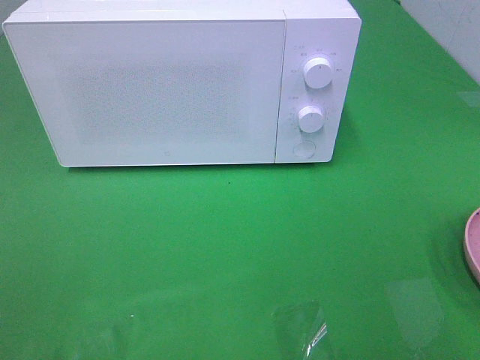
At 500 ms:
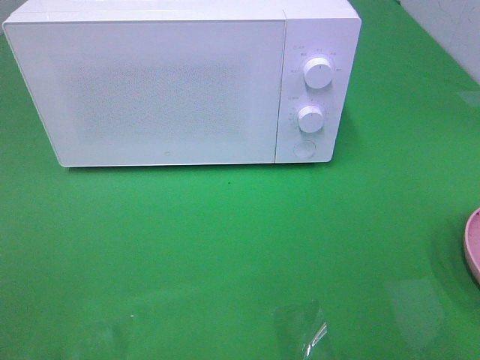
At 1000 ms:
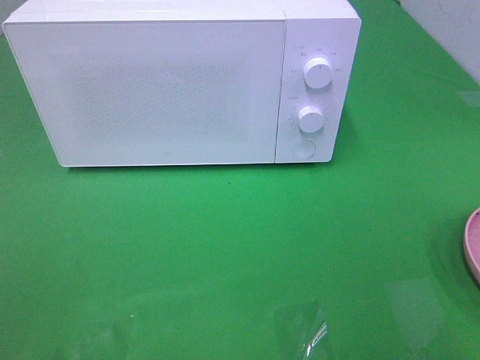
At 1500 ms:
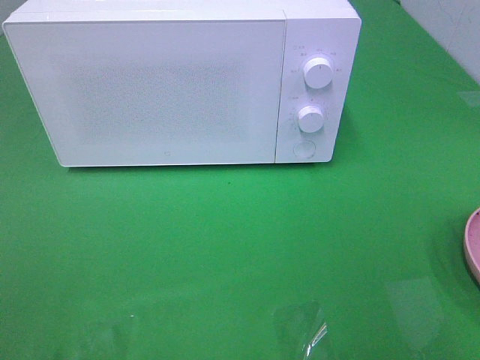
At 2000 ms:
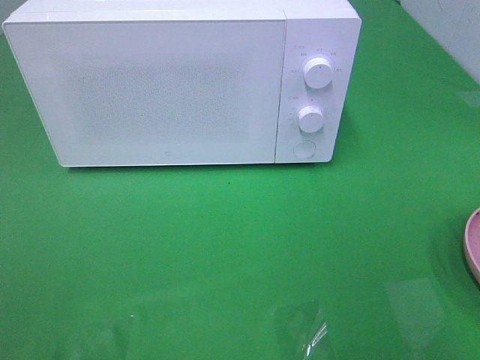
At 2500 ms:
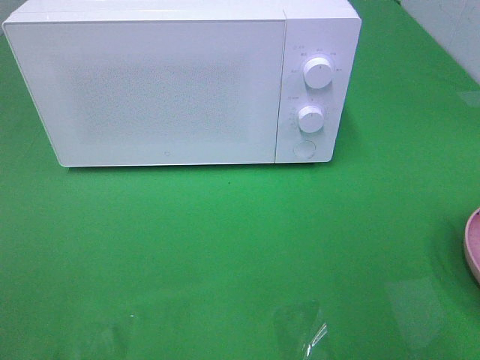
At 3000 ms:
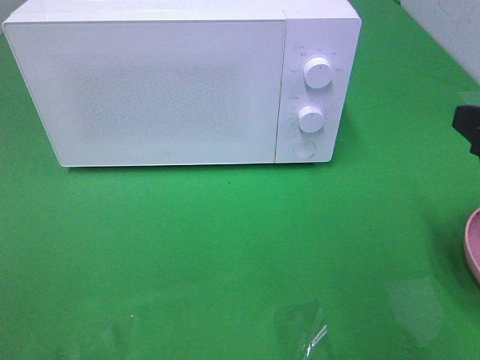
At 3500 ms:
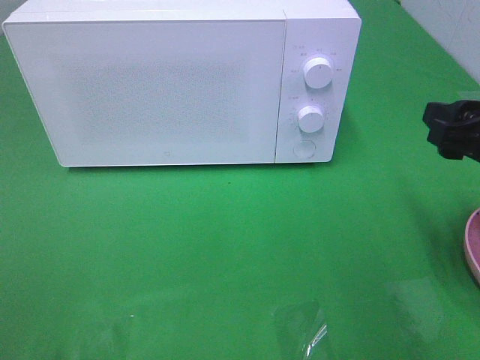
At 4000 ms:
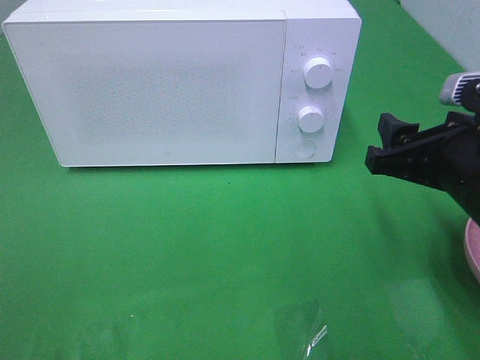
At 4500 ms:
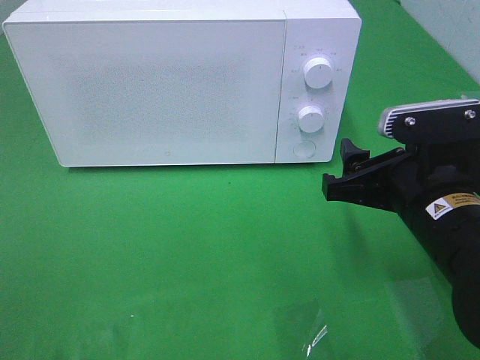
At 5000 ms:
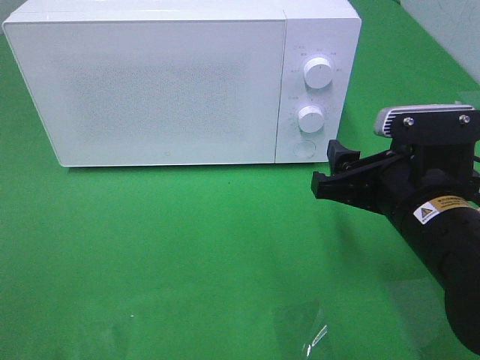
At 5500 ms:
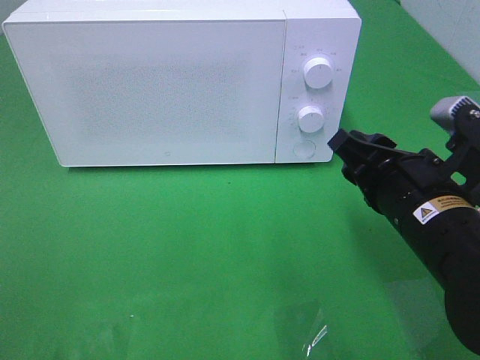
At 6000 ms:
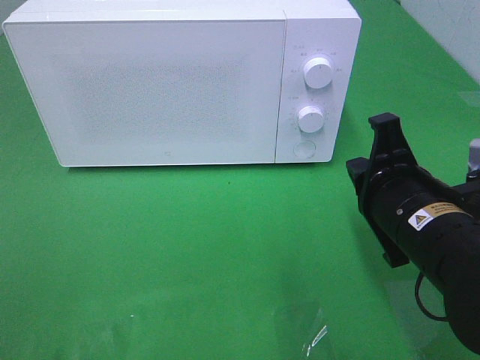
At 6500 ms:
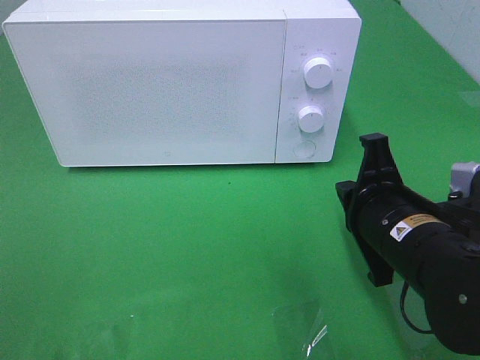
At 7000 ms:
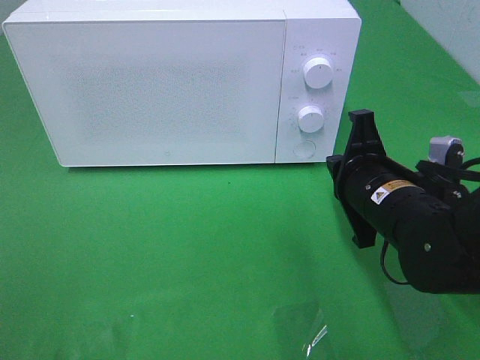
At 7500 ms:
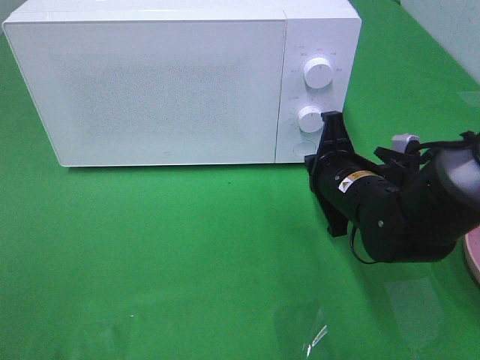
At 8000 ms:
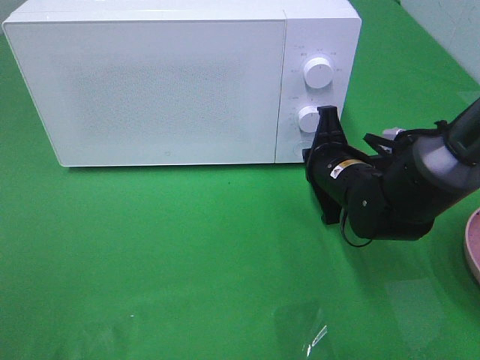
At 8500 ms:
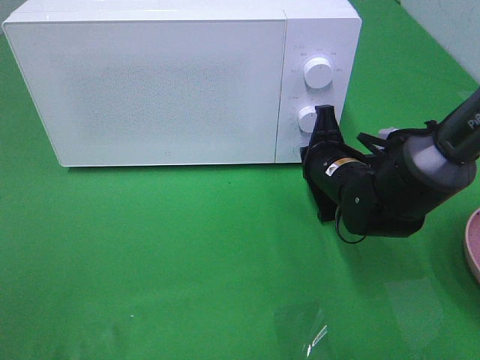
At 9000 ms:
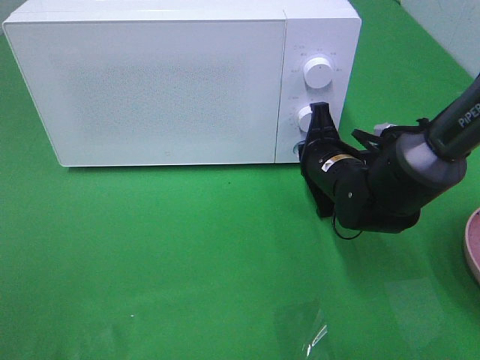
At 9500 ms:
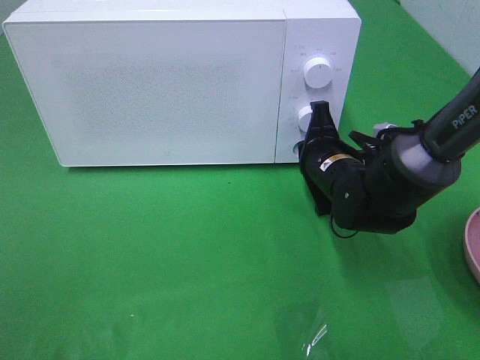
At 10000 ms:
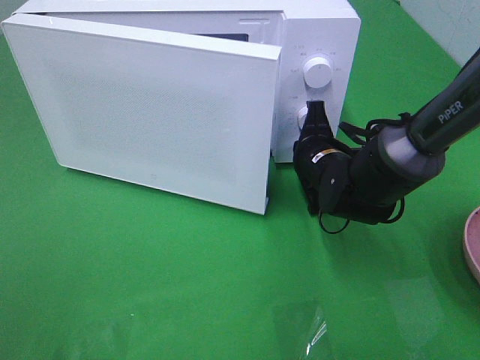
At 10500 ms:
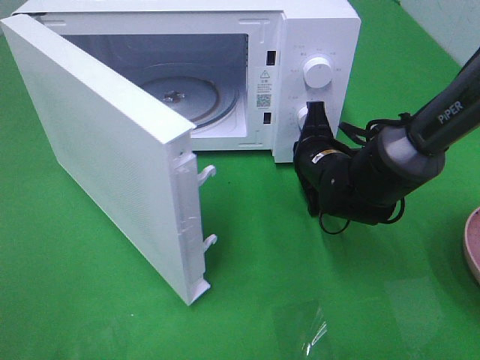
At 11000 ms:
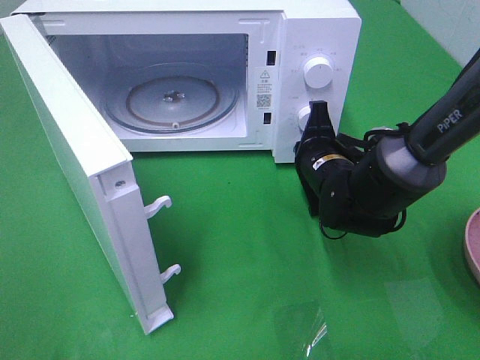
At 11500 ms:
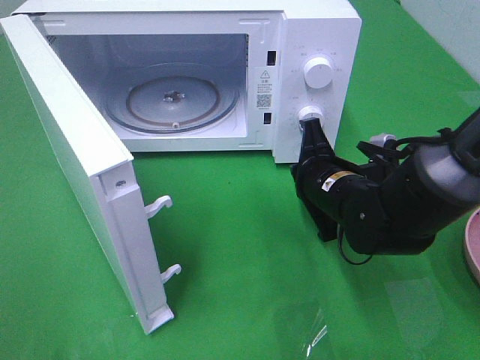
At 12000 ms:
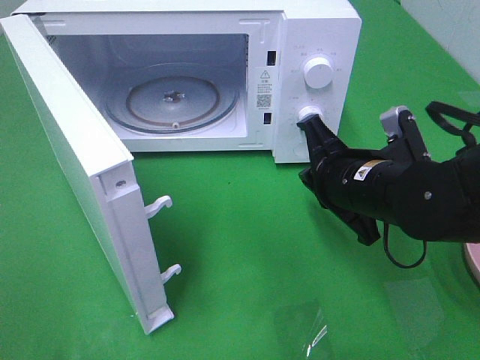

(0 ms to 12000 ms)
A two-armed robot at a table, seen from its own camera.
Task of the whole recording: Heat the burger.
Step, 0 ms - 8500 ms: Right hand: press the switch.
2000 ms - 4000 ms: The right gripper shifts about 20 cm forward, downward and to the left.
4000 ms - 6000 ms: The right gripper ends up about 5 cm from where it was, and closes.
6000 ms - 8000 ms: The right gripper goes approximately 15 cm forward and downward.
8000 ms - 10000 ms: The grippers move only a little.
10000 ms - 12000 ms: The right gripper heads backward and upward, covering some 10 cm.

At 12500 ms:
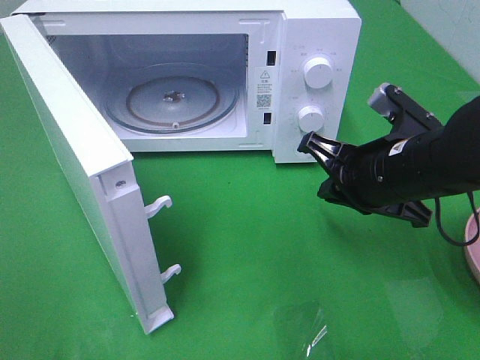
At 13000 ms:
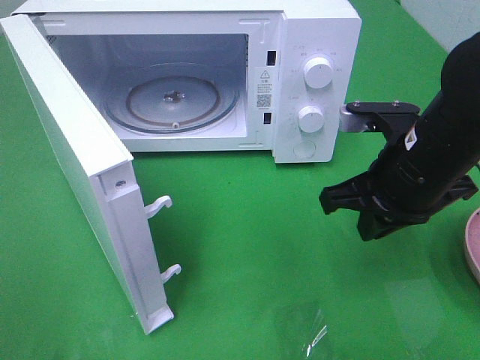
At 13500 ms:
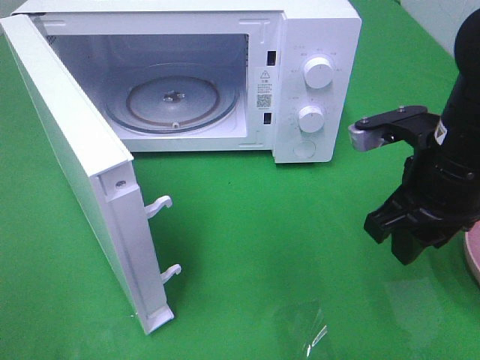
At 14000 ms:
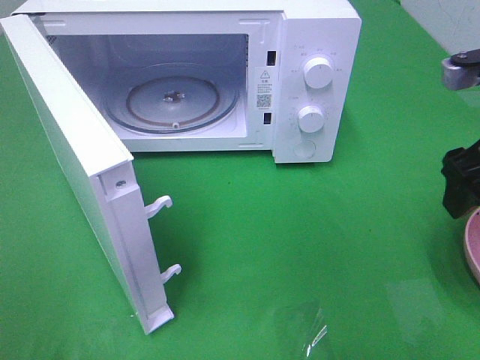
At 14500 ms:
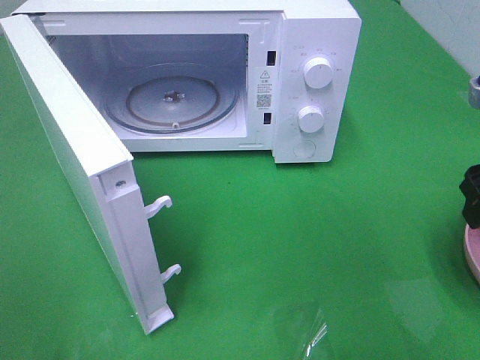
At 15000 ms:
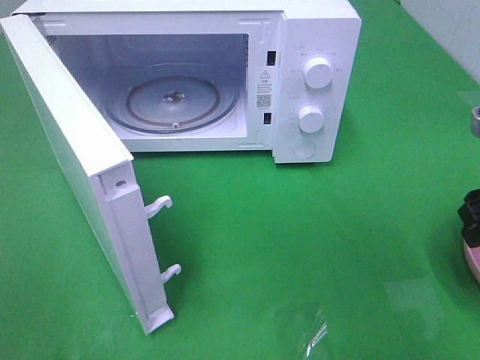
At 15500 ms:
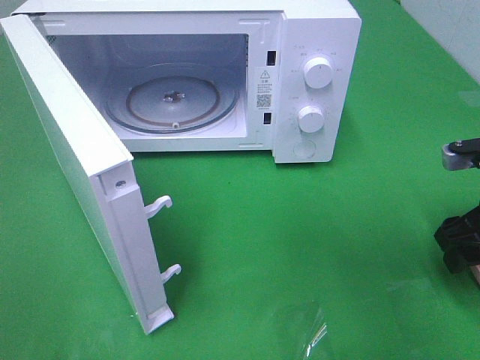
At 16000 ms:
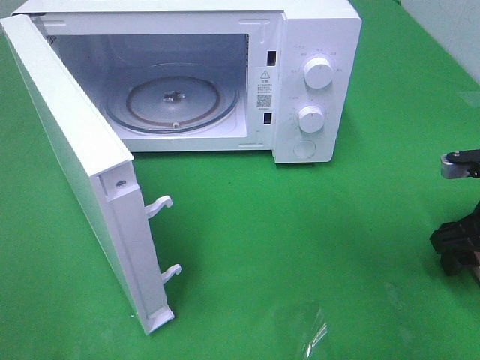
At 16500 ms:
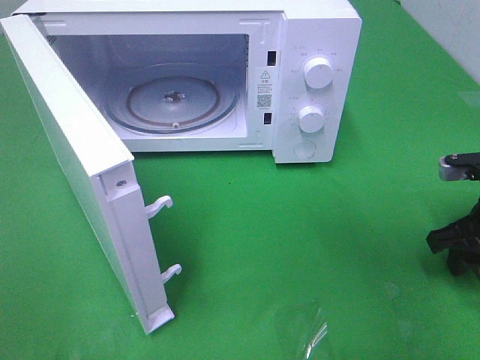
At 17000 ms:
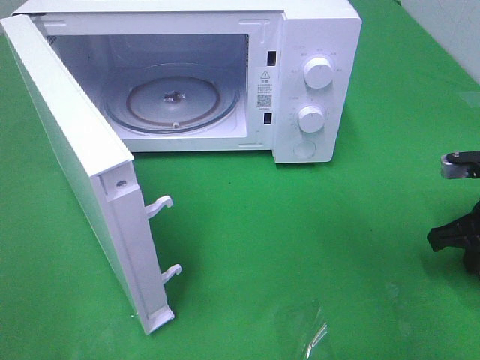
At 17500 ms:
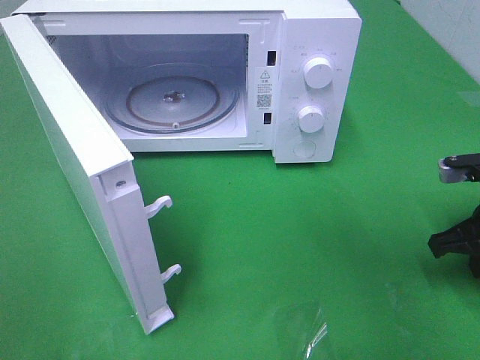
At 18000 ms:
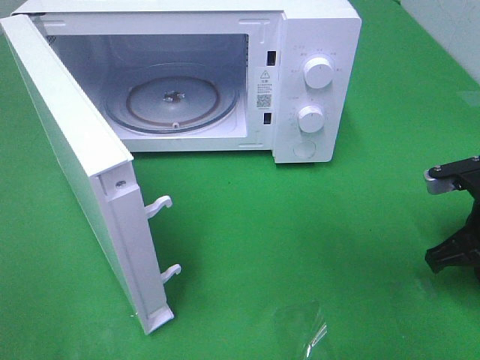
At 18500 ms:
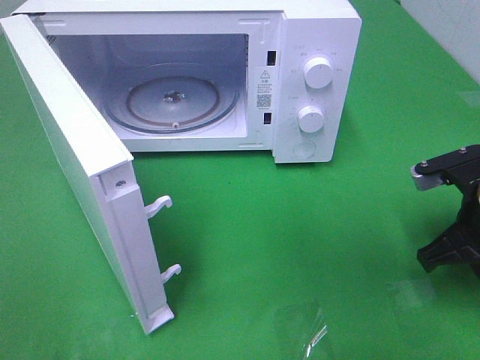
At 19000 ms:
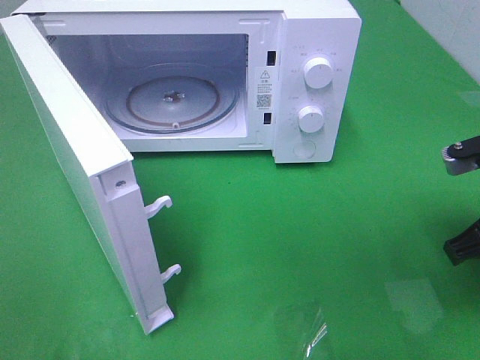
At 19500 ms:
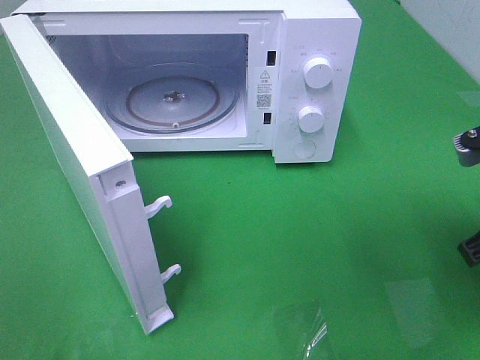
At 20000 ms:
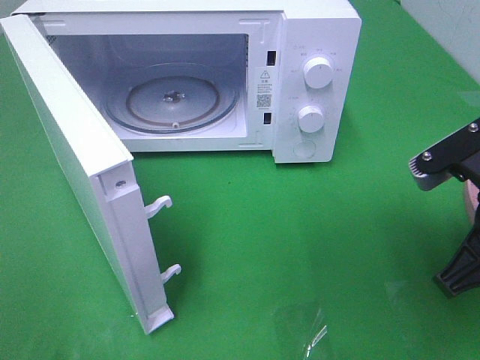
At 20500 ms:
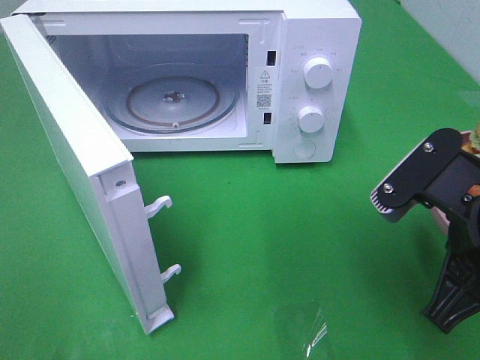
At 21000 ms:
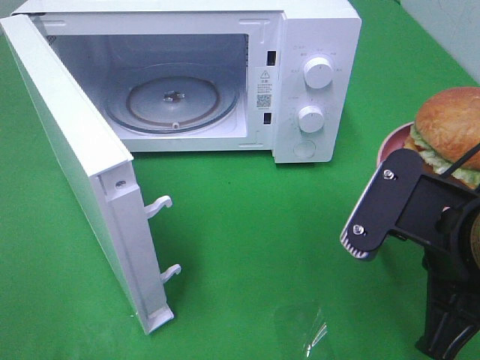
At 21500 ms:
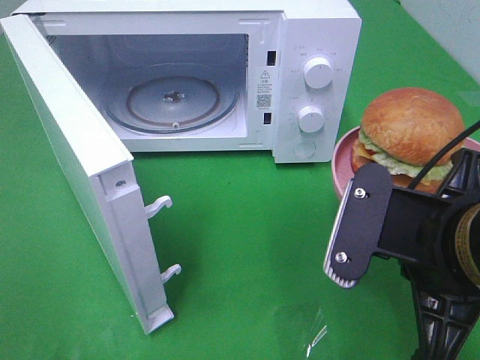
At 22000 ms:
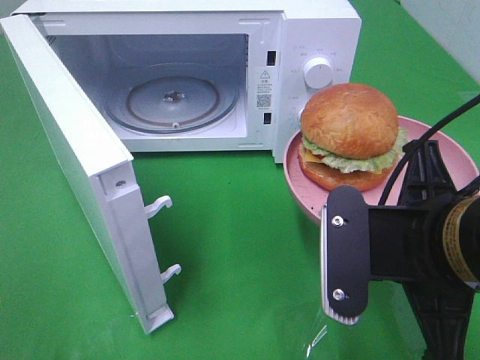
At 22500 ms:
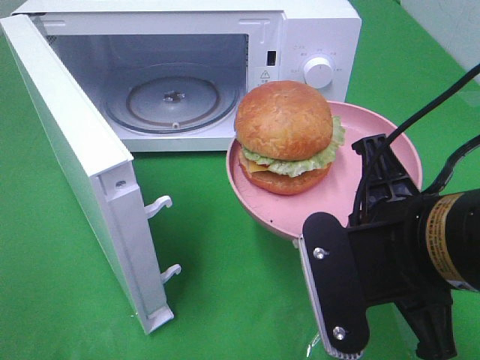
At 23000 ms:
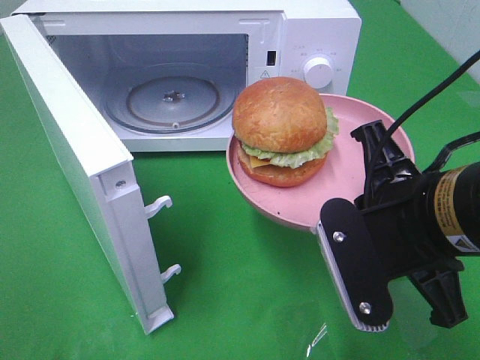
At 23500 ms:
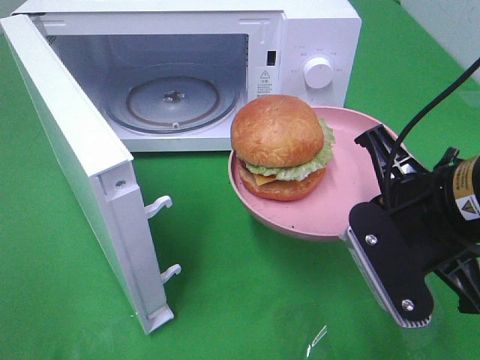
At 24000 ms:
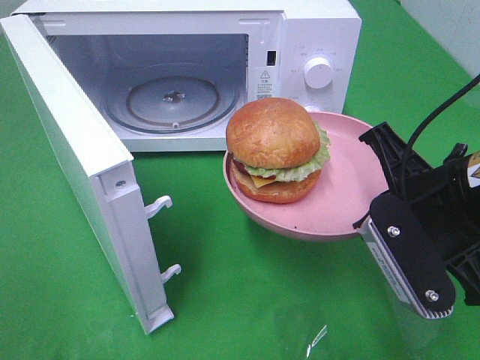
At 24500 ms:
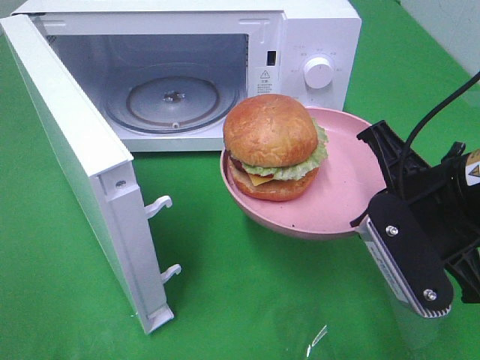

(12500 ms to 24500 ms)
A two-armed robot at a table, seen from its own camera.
Task of the whole recording: Heat the burger.
Step, 12500 ms - 16500 ms: Right hand: grab the plate with the hamburger.
12500 ms - 14500 ms: The right gripper goes approximately 15 cm to the right and upward, and opens up.
14500 ms - 16500 ms: The right gripper moves downward, roughly 10 cm.
16500 ms - 18500 ms: The right gripper changes place by some 5 cm, and closes.
18500 ms - 20500 ms: The right gripper moves backward, to the left and upward, some 15 cm.
20500 ms - 22500 ms: The right gripper is displaced to the left by roughly 5 cm.
22500 ms - 24500 ms: The right gripper travels forward and to the right by approximately 10 cm.

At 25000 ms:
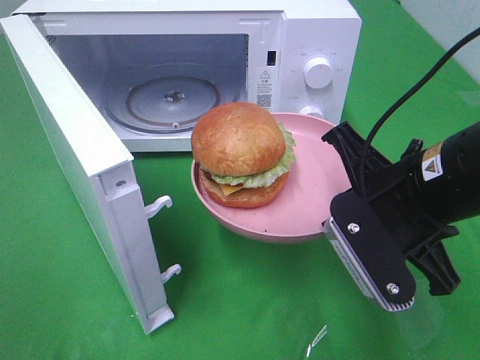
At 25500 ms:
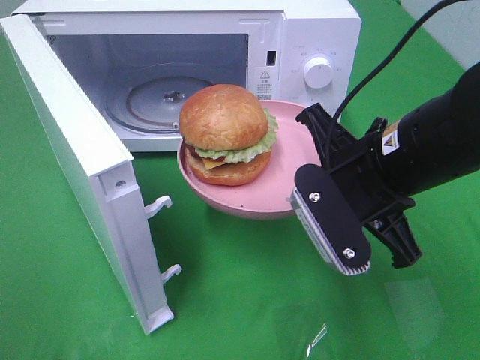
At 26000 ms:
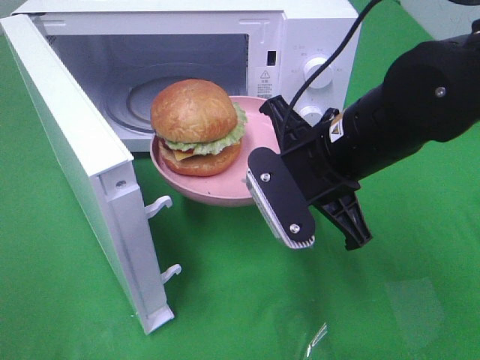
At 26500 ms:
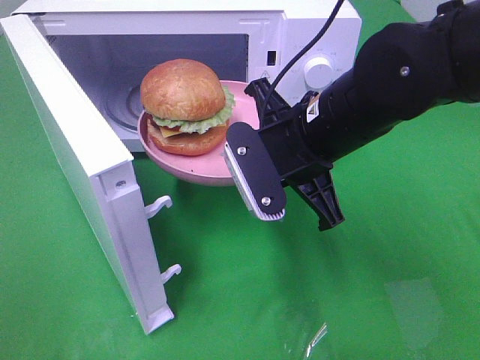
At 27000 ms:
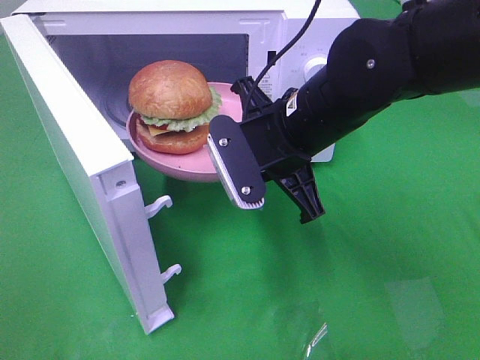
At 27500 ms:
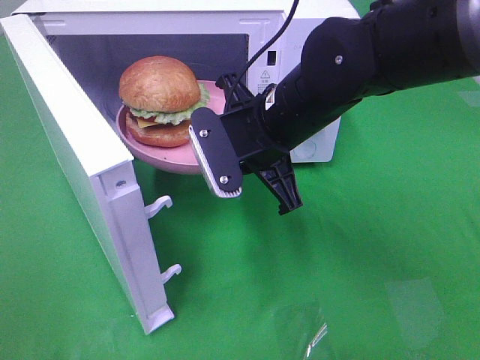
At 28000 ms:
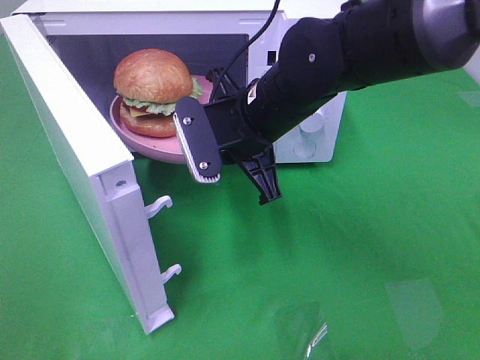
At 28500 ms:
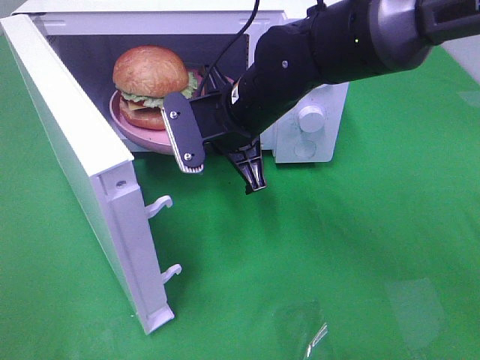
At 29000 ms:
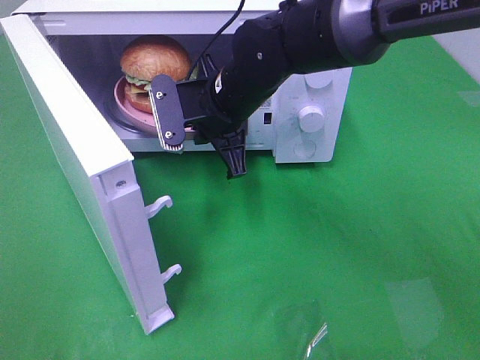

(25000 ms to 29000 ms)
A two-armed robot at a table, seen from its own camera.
Task of the whole recording: Heat the burger.
25000 ms - 27000 ms: The right gripper goes about 10 cm to the left and forward.
27000 ms - 29000 ms: The right gripper is displaced forward and to the left by roughly 10 cm.
